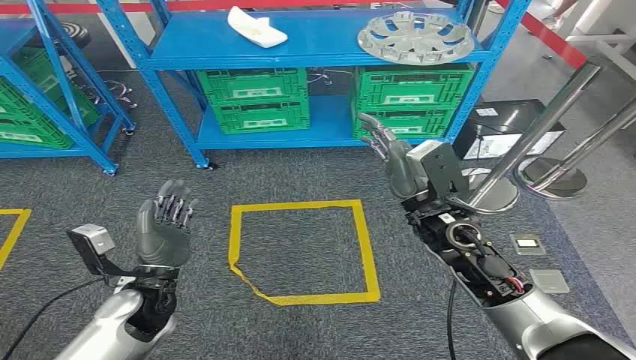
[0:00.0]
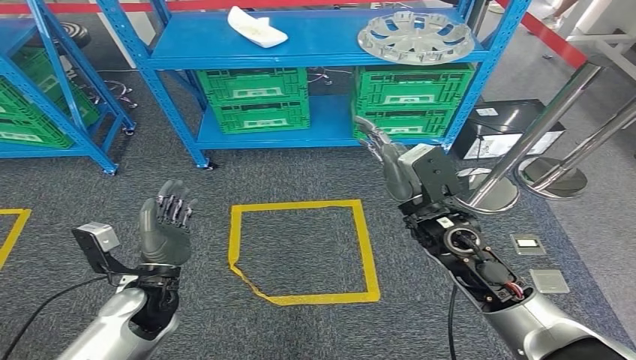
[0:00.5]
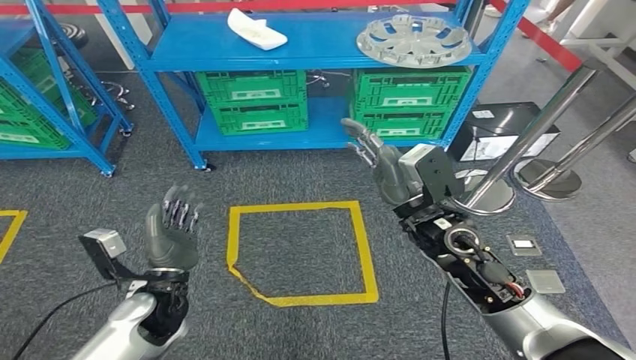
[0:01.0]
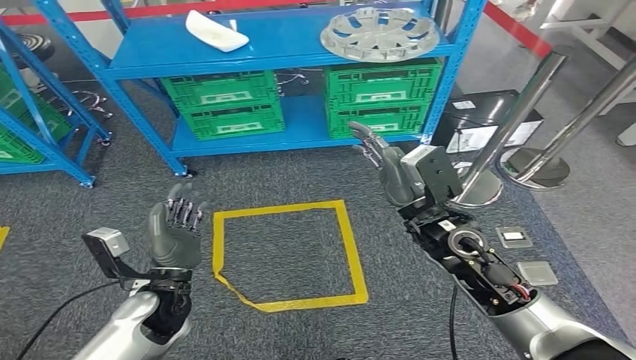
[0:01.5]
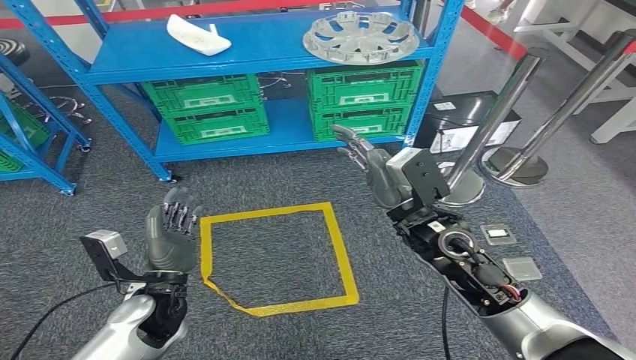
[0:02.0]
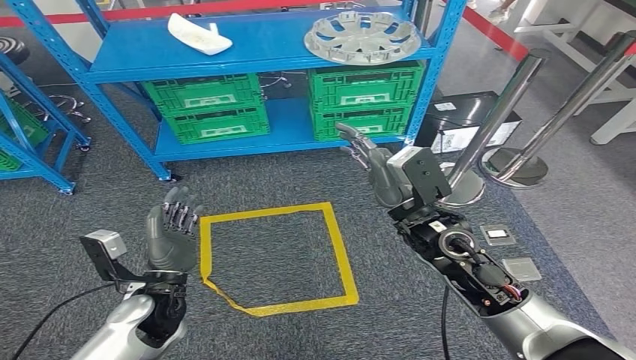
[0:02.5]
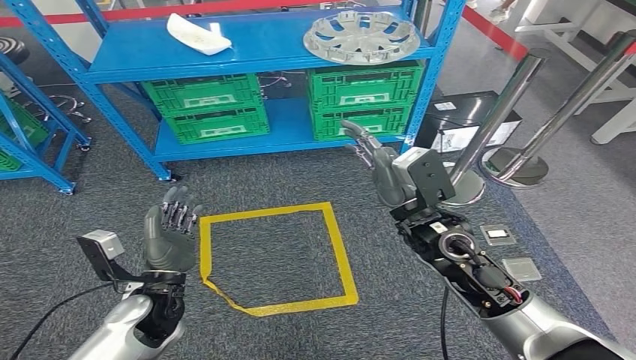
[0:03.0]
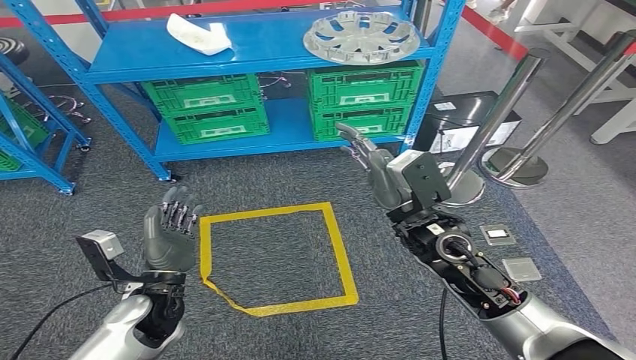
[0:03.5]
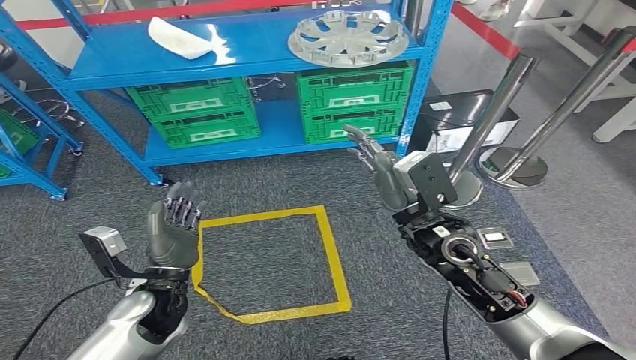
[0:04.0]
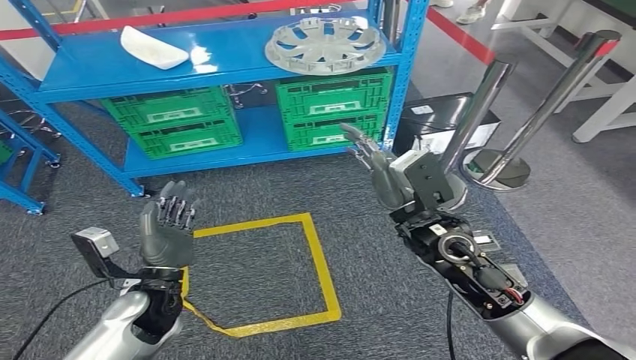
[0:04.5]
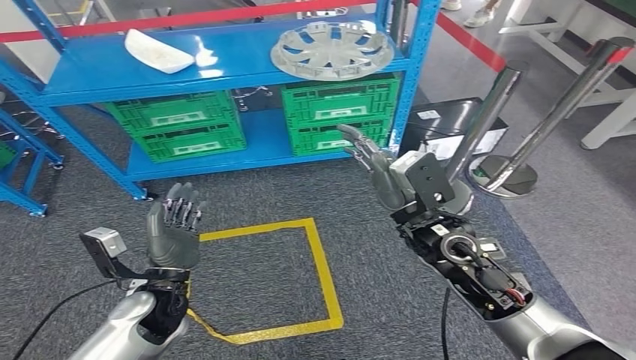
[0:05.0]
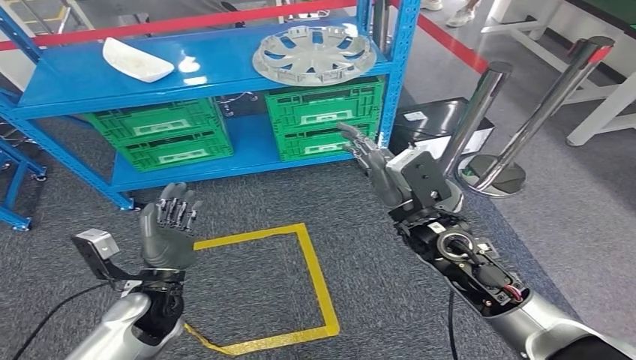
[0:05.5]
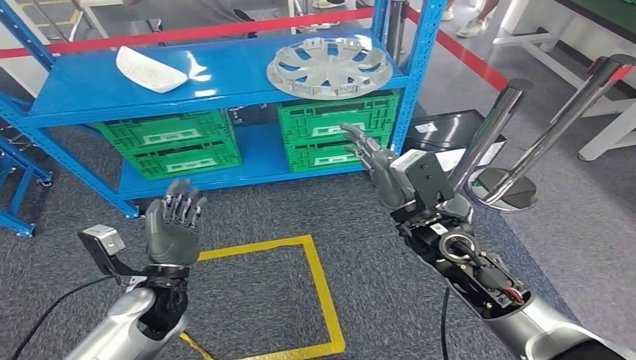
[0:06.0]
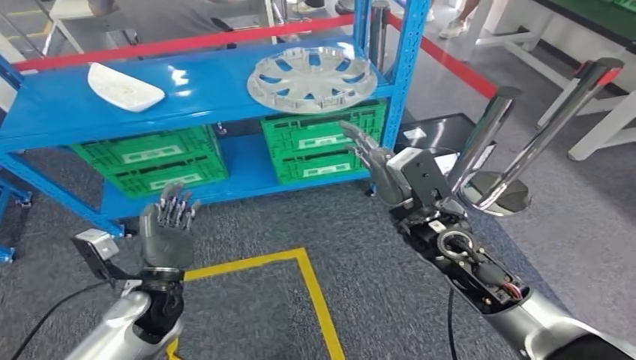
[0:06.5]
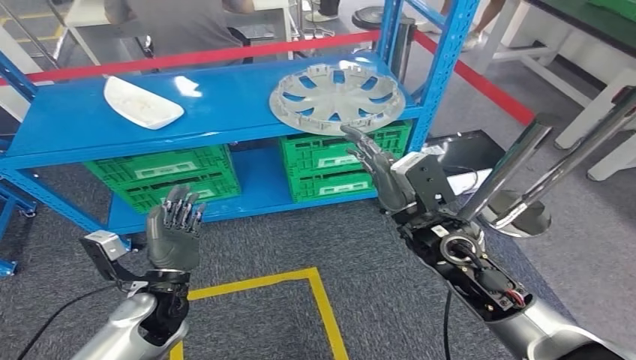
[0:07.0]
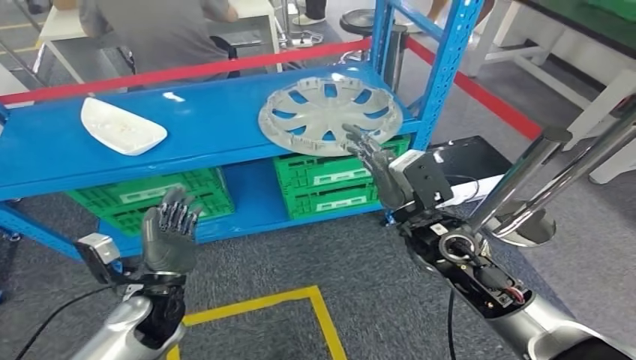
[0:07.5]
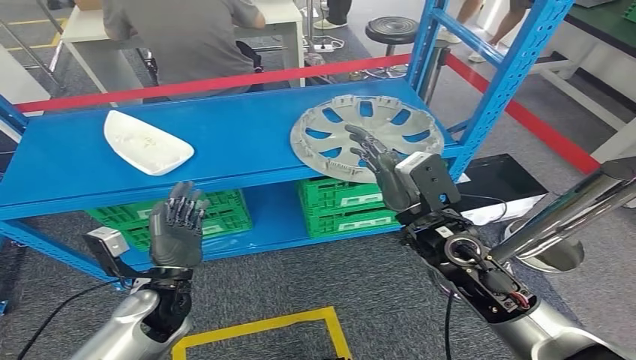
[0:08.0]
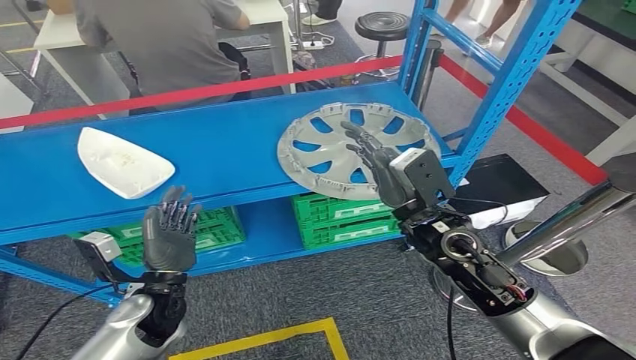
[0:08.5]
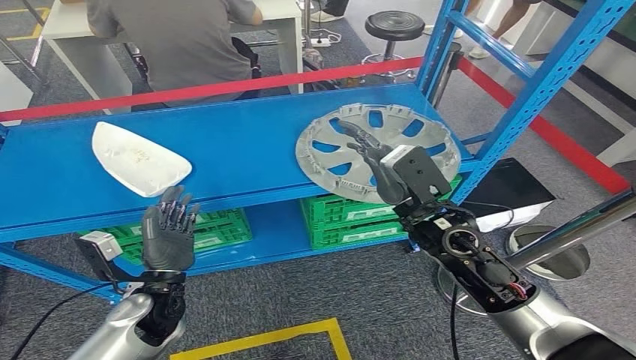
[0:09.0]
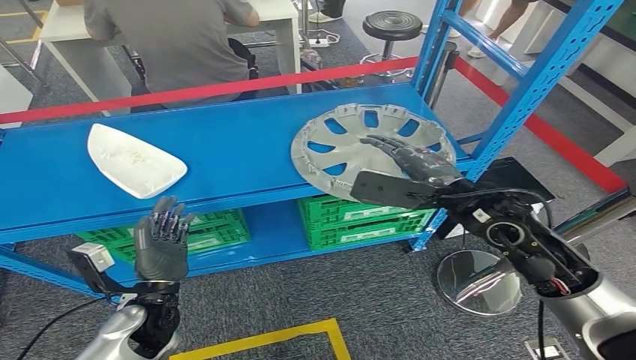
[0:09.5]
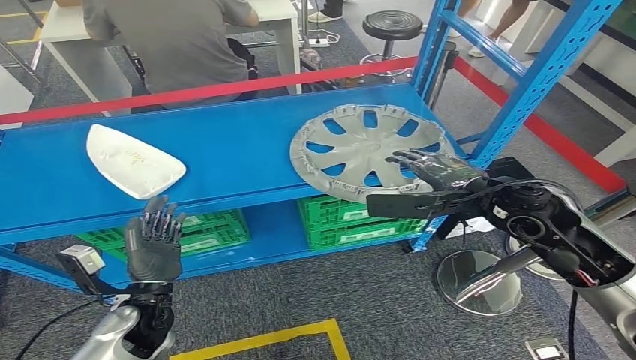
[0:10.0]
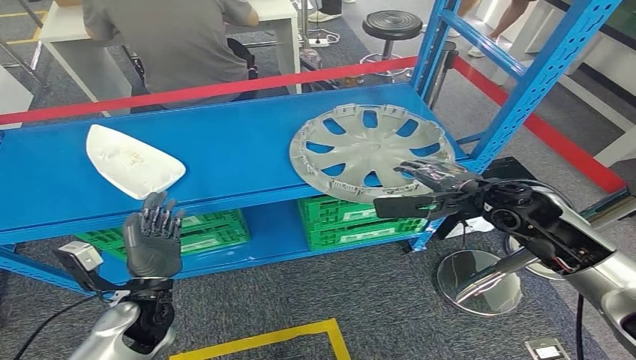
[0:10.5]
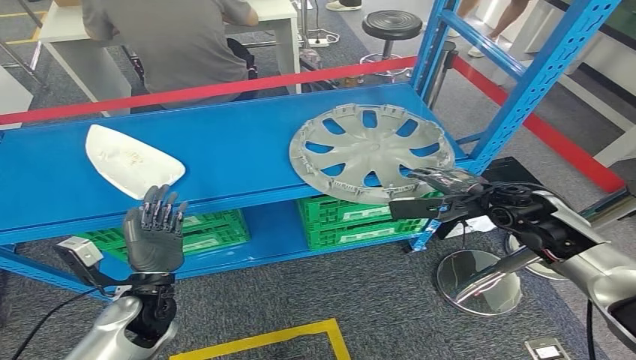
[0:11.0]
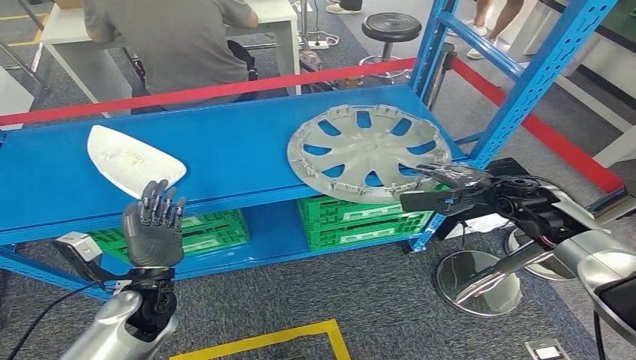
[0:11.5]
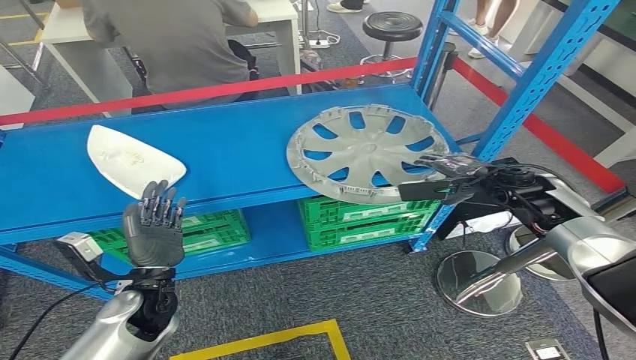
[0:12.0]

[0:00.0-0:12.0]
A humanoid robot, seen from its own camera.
0:10.0 to 0:12.0: The right hand travels to the right, downward and forward by some 15 cm.

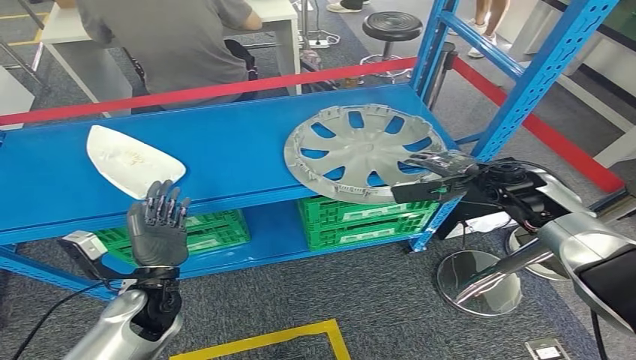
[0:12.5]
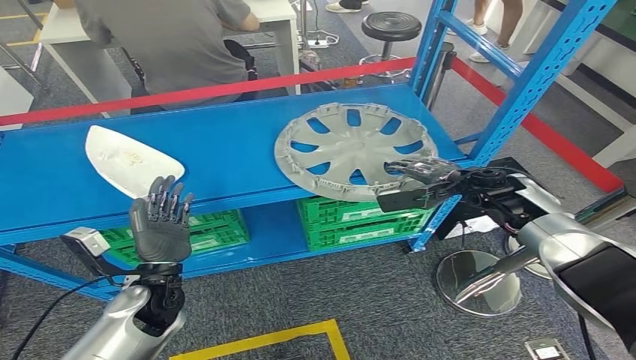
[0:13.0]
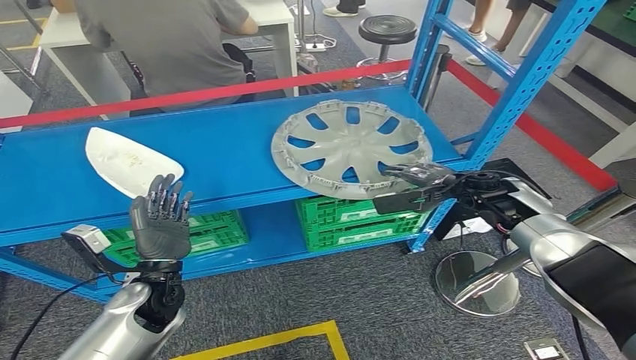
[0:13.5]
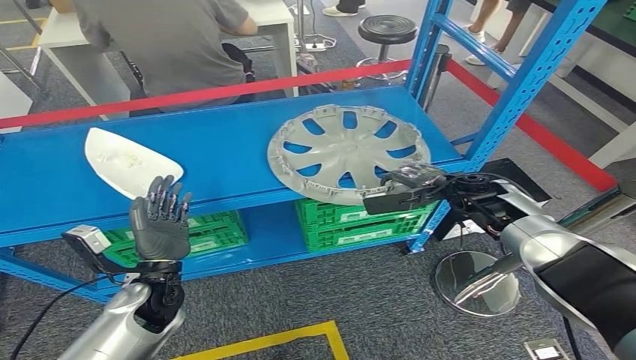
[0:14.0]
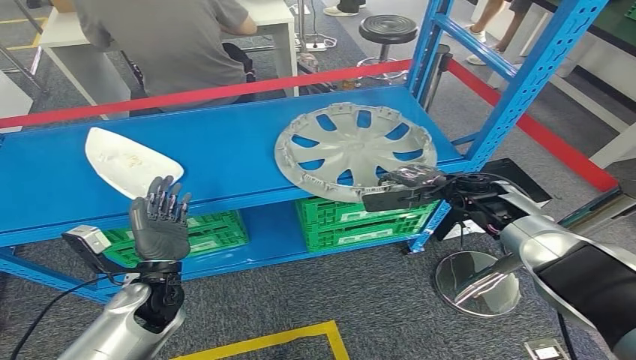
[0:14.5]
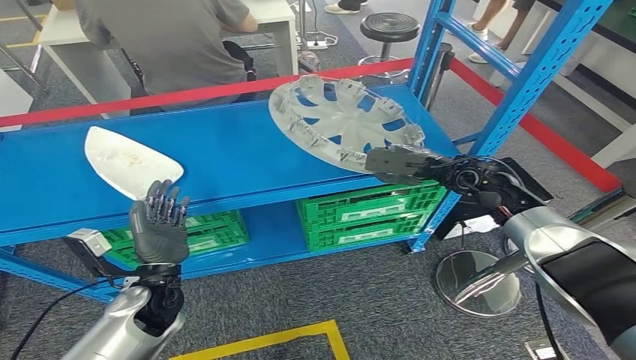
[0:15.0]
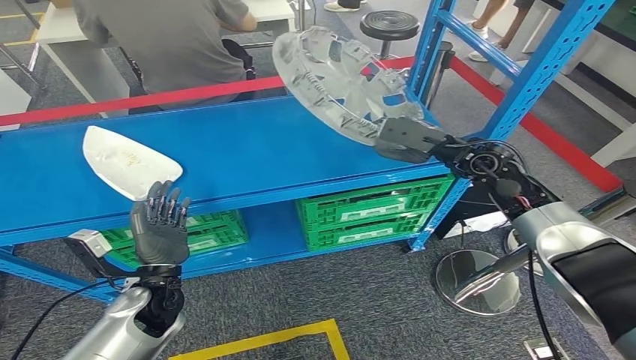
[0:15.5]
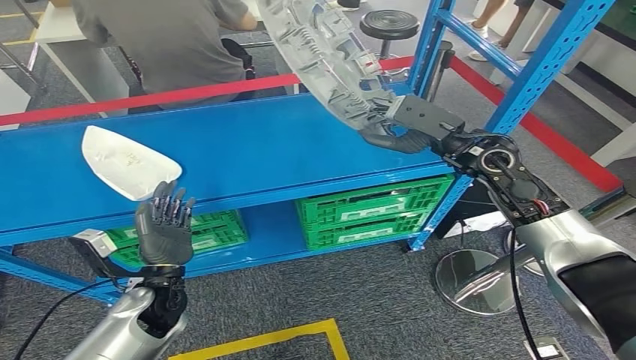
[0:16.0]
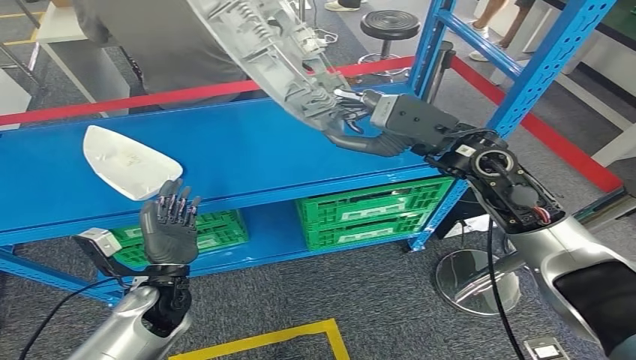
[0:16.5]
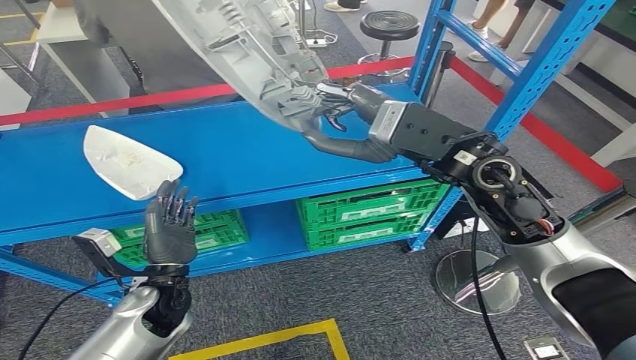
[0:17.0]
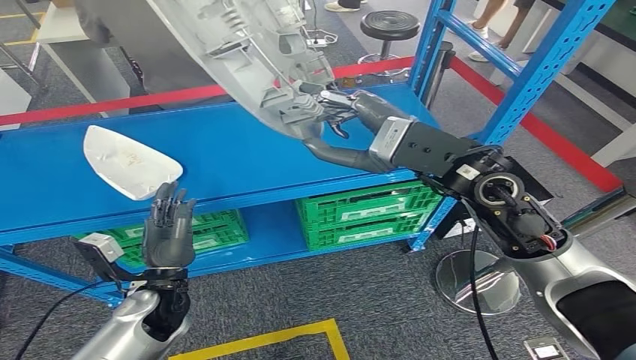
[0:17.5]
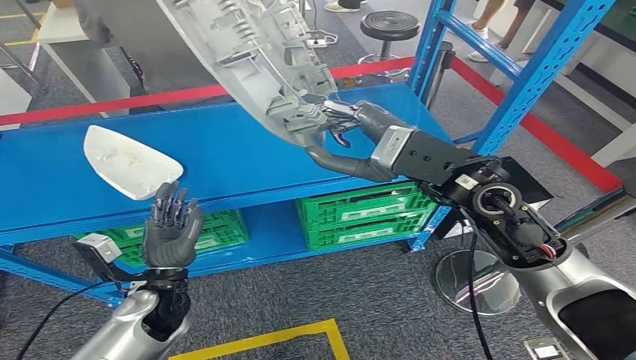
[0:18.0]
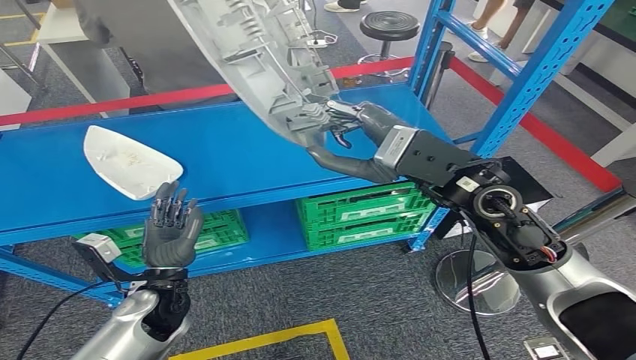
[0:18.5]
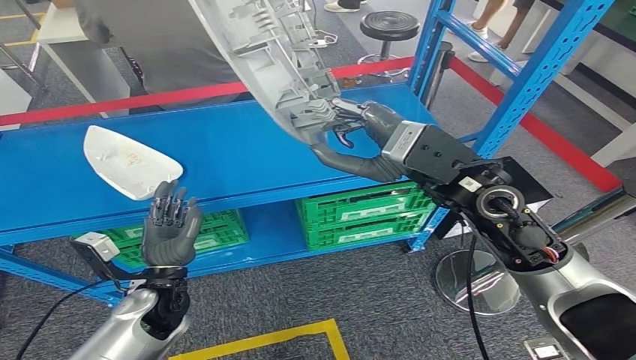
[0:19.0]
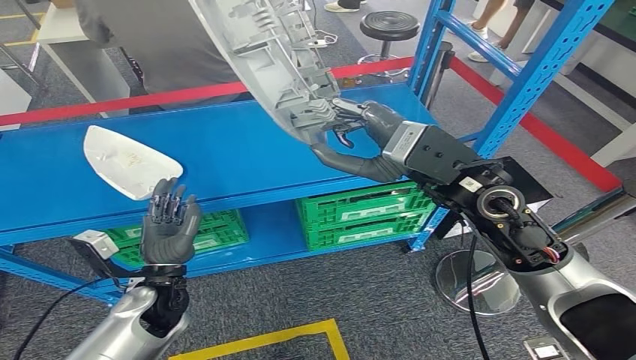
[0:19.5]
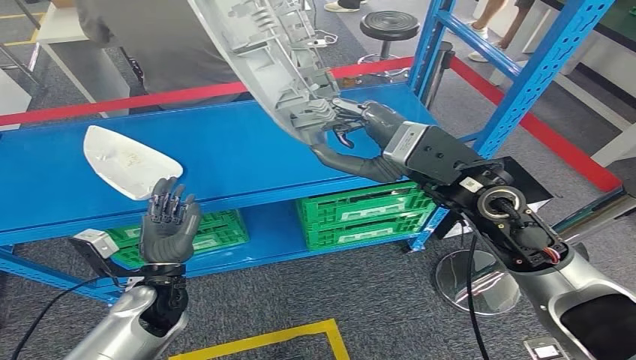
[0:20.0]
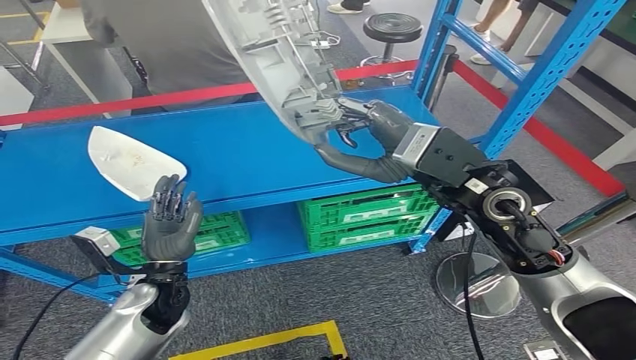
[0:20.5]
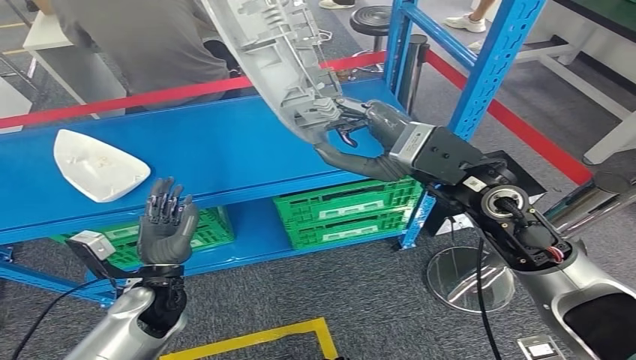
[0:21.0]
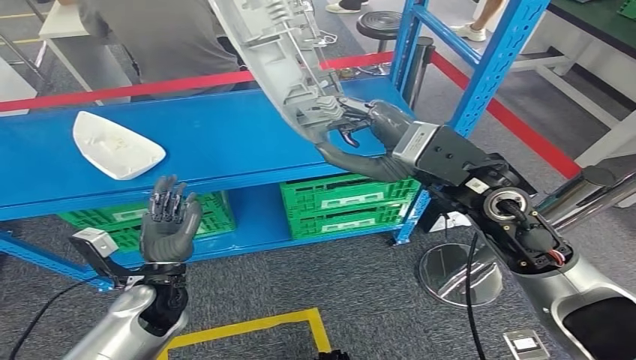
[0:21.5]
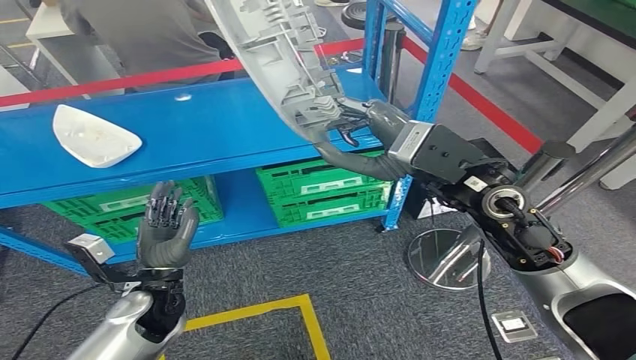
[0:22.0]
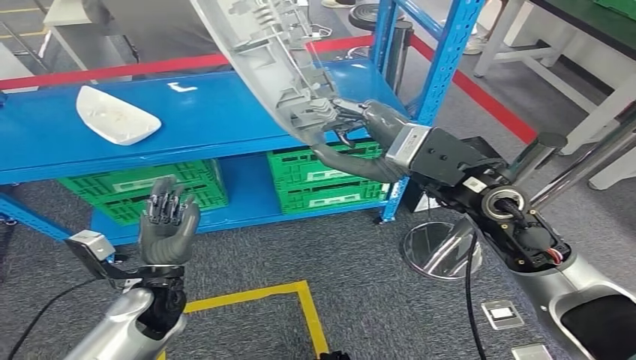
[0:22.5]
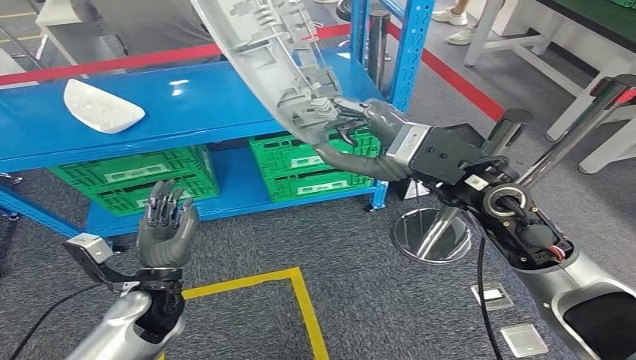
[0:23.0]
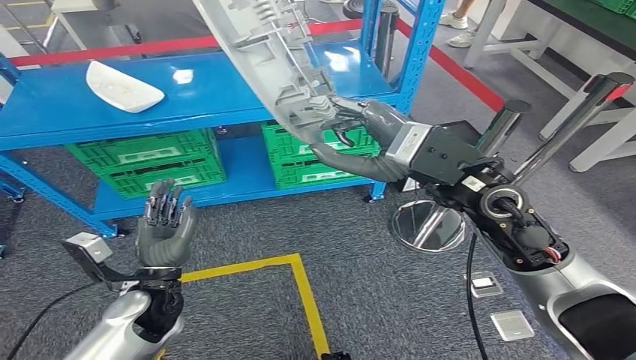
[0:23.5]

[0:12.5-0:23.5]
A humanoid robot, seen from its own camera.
Step, 0:12.5 to 0:15.0: Pick up the small component from the shelf.
0:18.0 to 0:20.0: The two hands keep their place.
